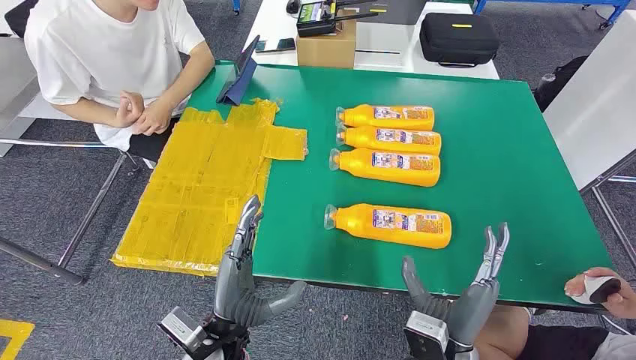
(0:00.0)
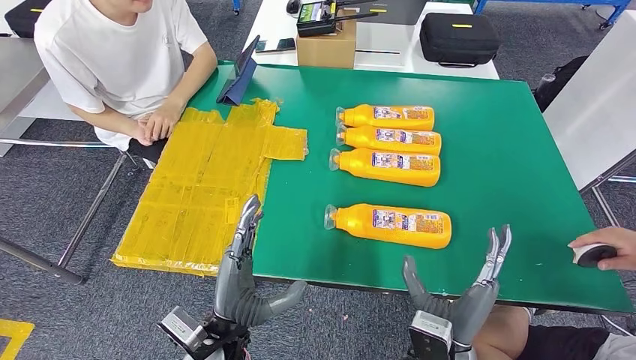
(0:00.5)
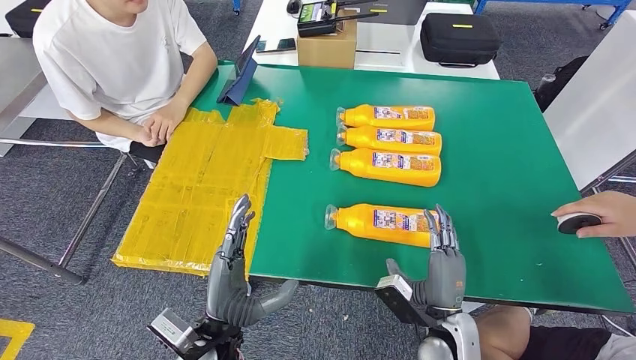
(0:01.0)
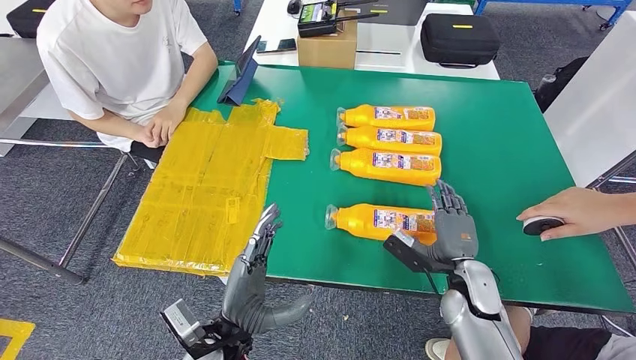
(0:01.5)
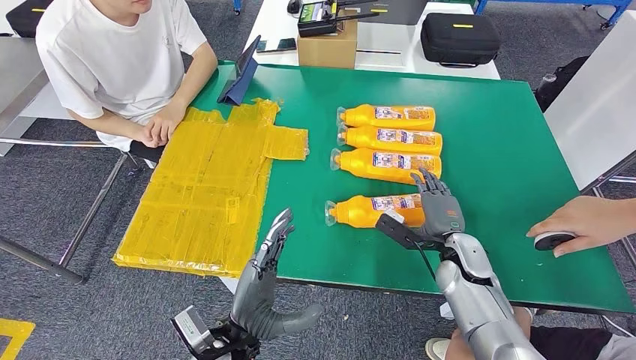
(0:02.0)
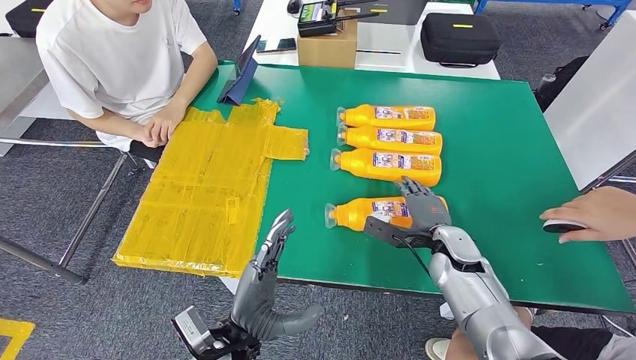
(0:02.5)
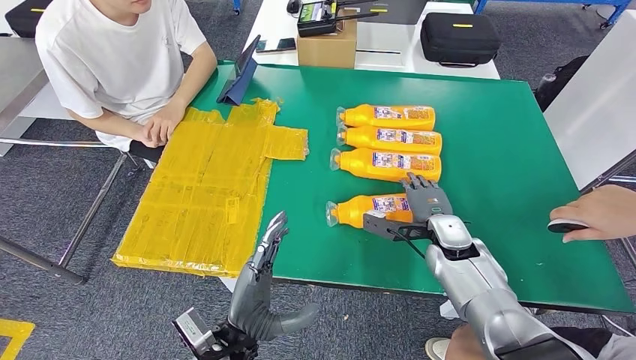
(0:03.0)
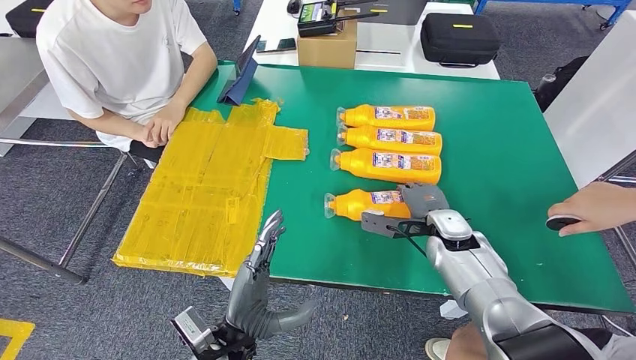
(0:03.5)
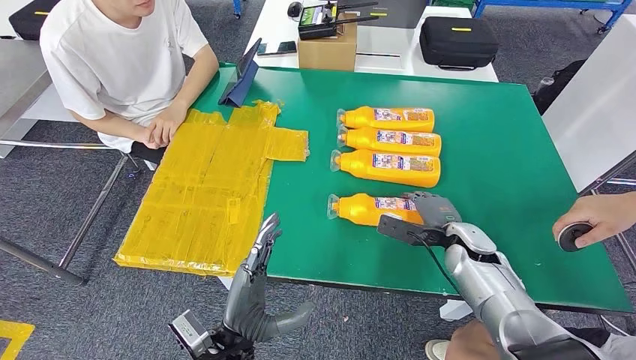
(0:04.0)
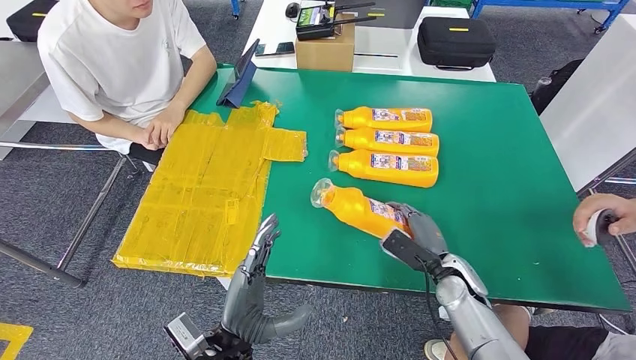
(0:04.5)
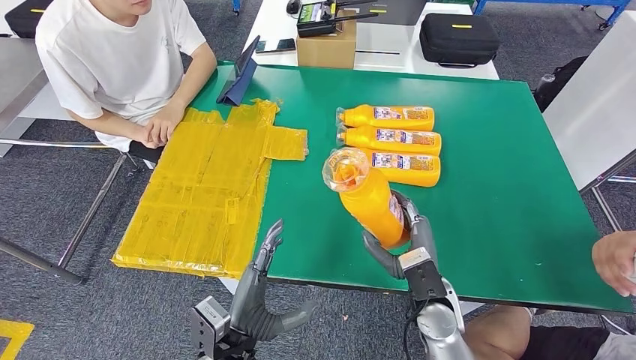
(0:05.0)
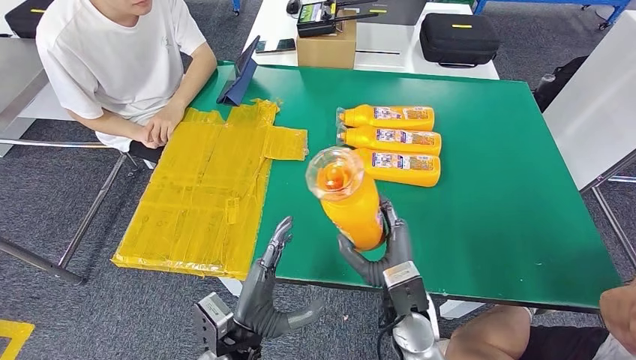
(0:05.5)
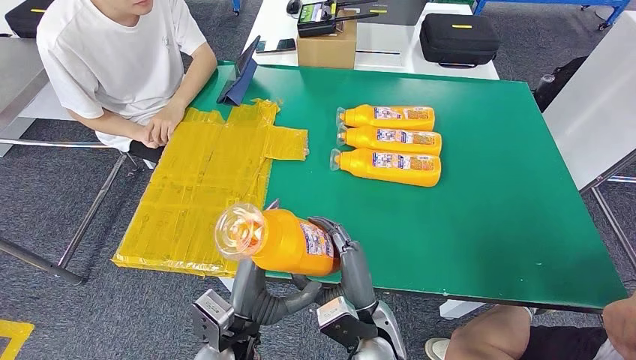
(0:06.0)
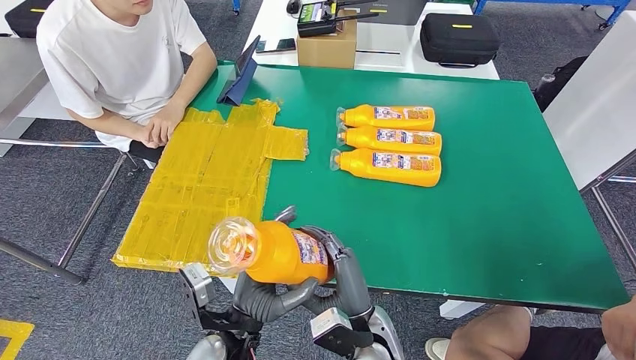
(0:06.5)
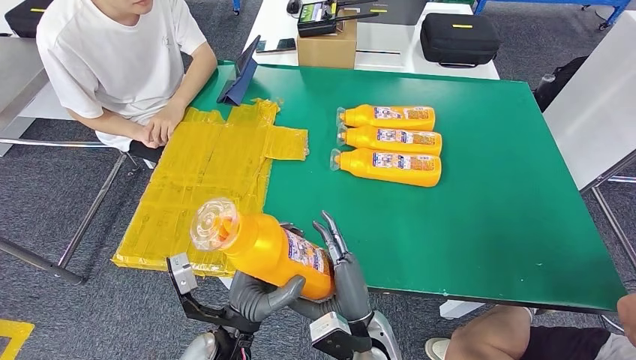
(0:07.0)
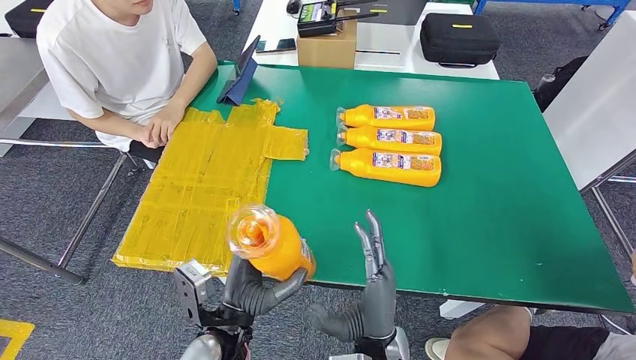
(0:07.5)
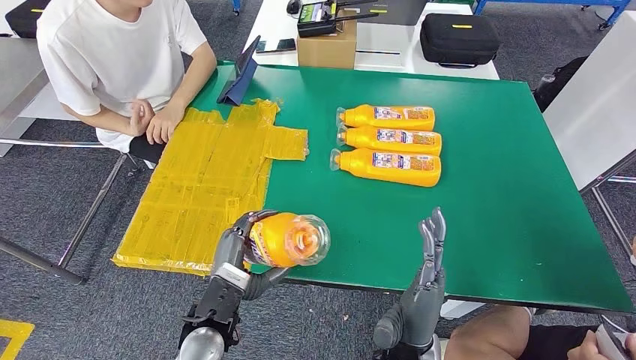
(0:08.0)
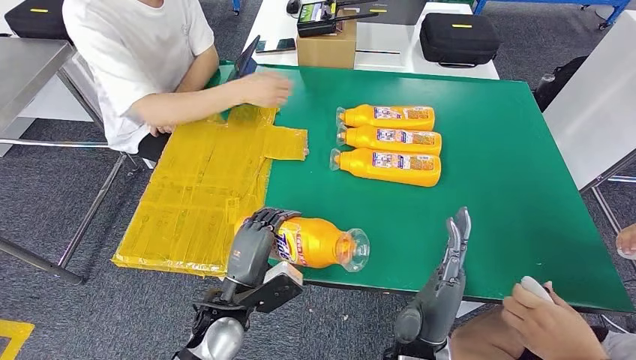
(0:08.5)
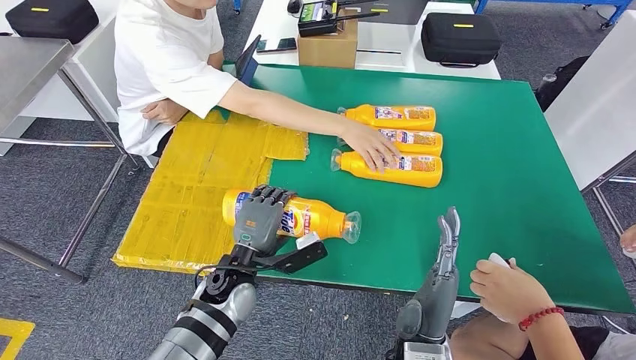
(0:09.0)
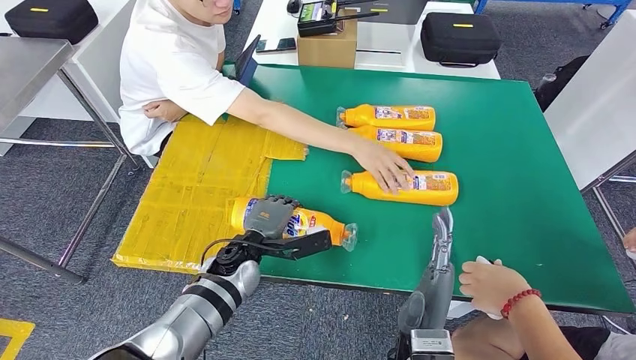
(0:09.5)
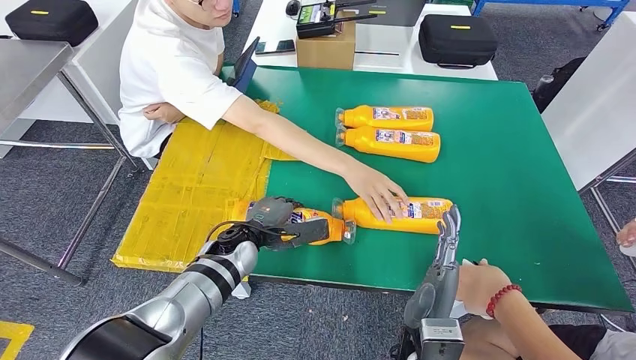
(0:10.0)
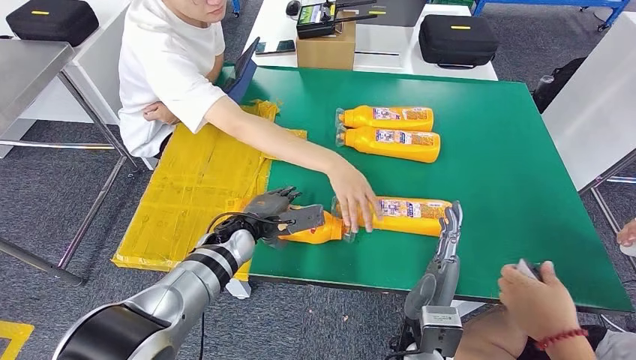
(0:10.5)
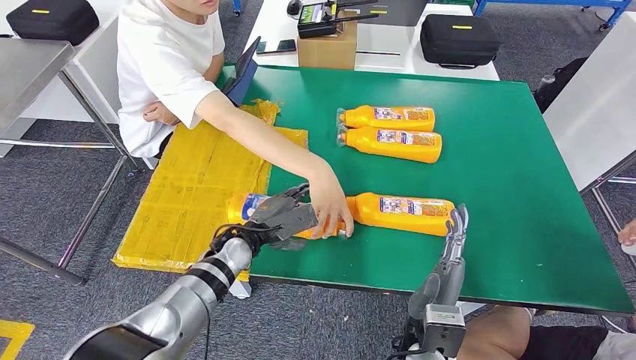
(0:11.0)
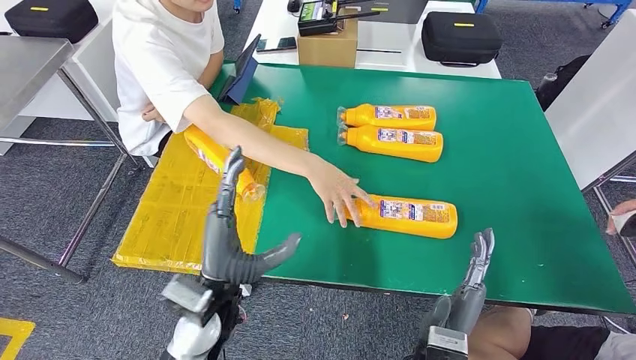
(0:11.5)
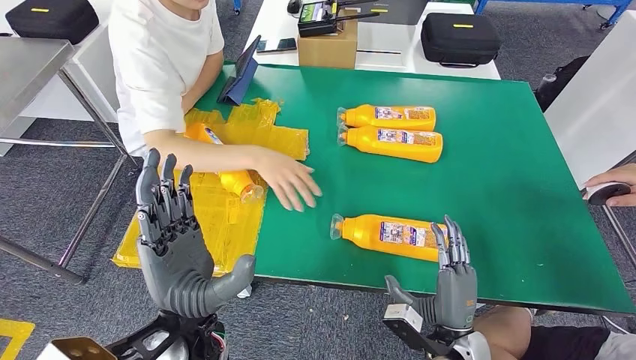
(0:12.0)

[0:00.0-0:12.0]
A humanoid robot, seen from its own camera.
Step, 0:00.0 to 0:06.5: Take the bottle from the table.
Step, 0:07.0 to 0:11.5: Flip the bottle to face forward.
0:06.0 to 0:08.0: The right hand ends up approximately 5 cm from where it was.

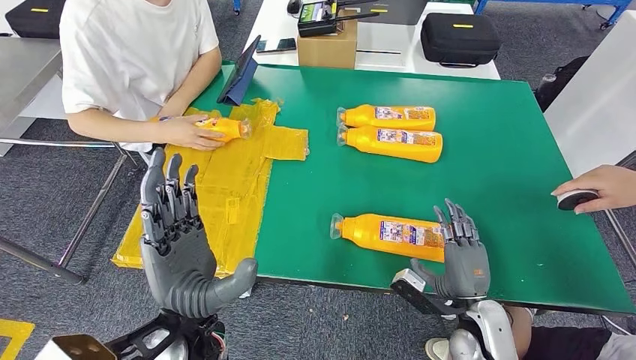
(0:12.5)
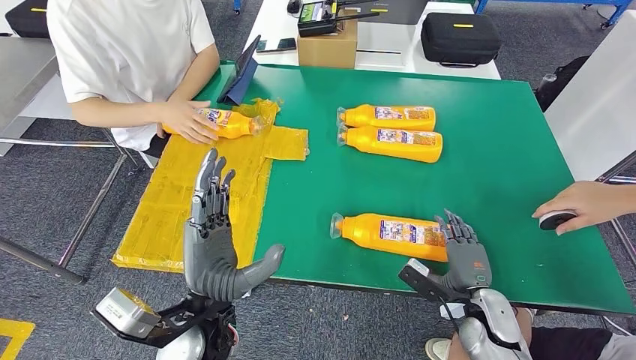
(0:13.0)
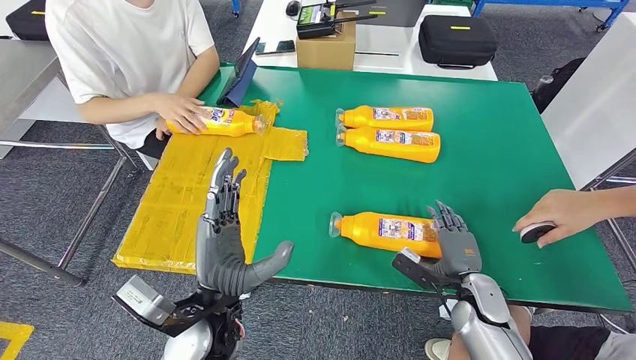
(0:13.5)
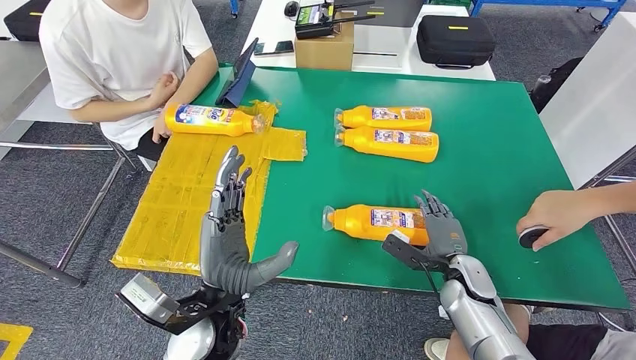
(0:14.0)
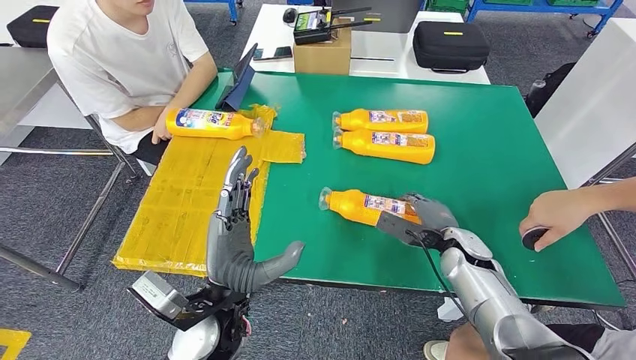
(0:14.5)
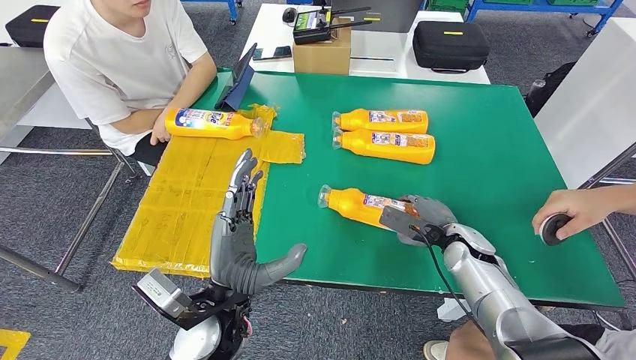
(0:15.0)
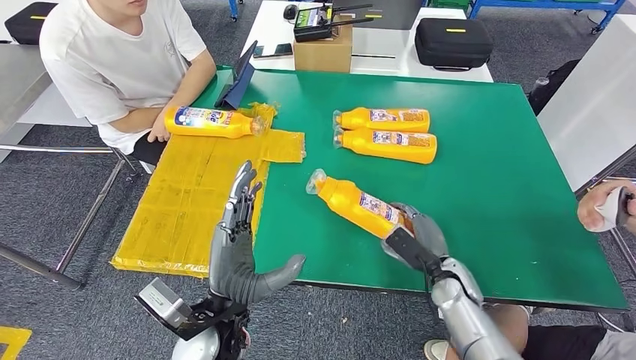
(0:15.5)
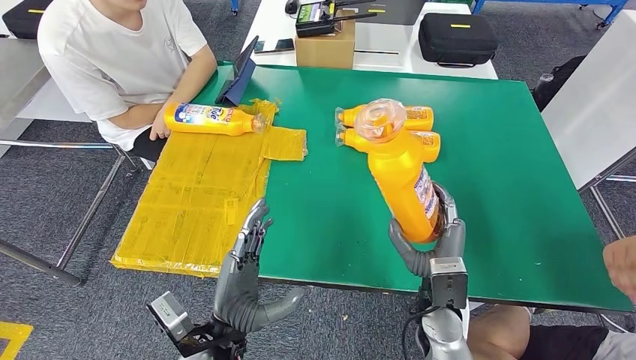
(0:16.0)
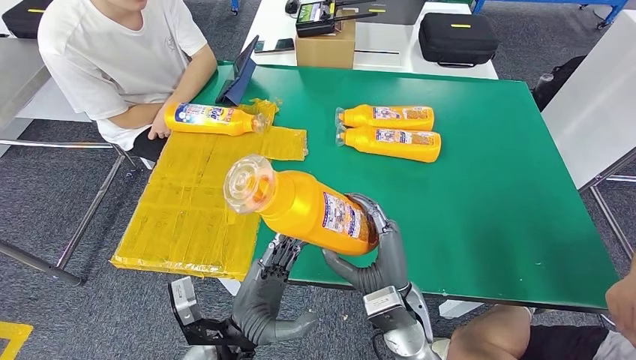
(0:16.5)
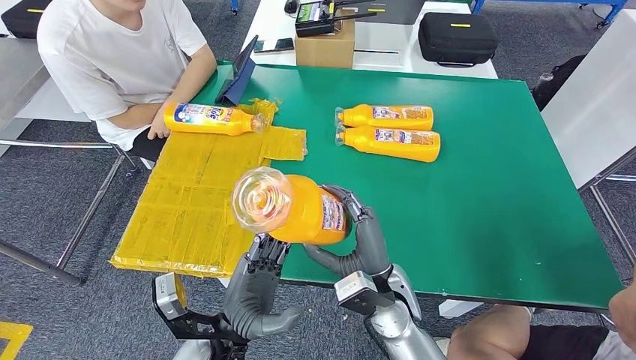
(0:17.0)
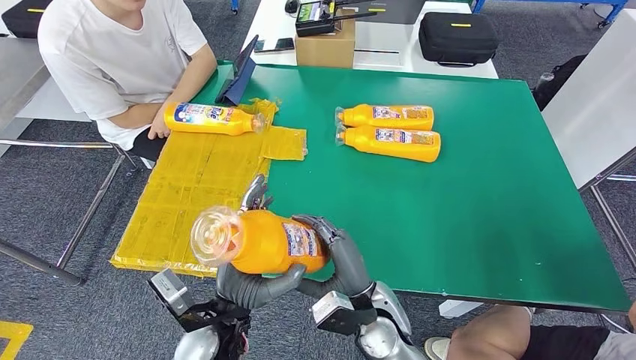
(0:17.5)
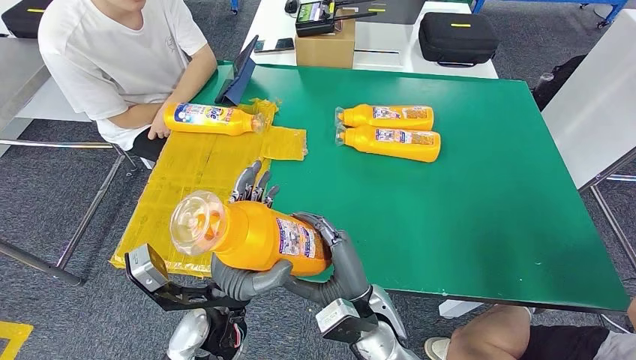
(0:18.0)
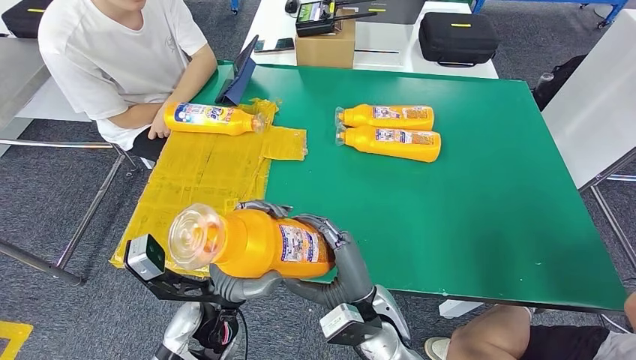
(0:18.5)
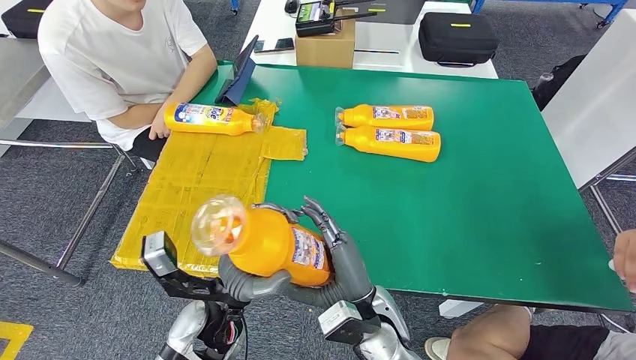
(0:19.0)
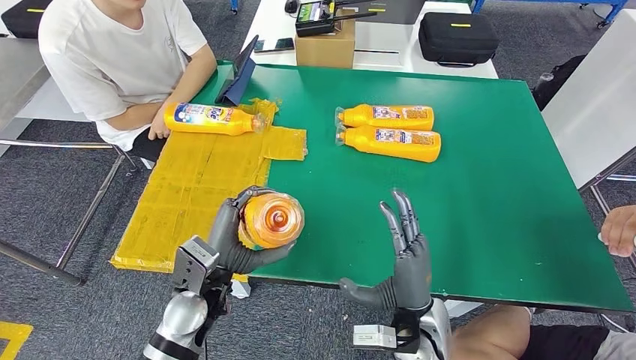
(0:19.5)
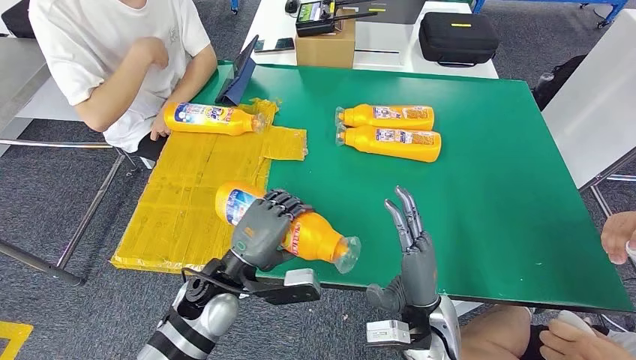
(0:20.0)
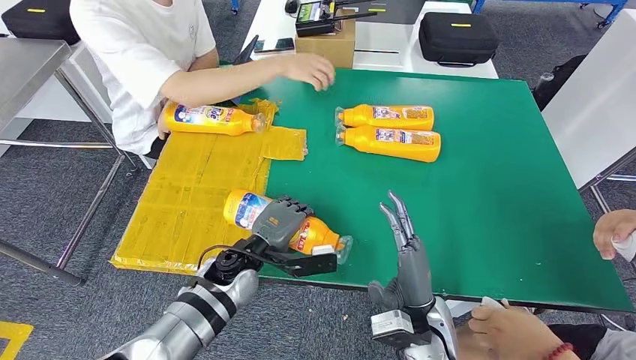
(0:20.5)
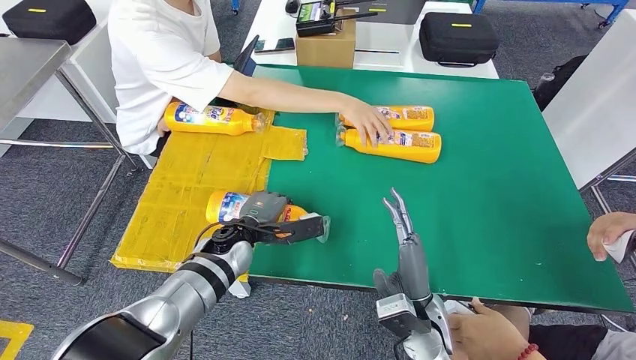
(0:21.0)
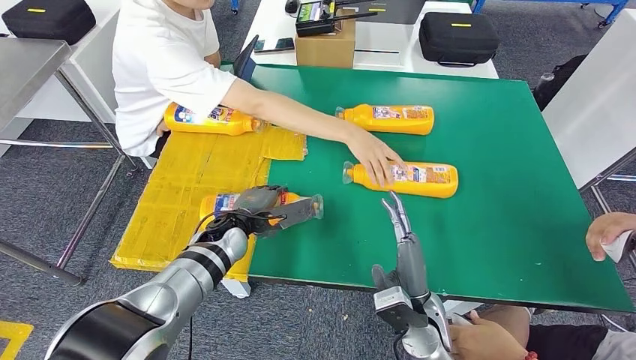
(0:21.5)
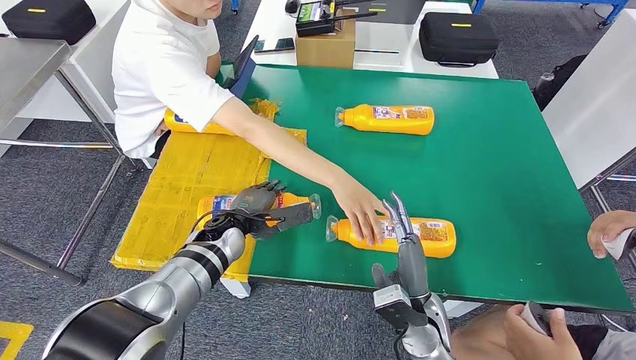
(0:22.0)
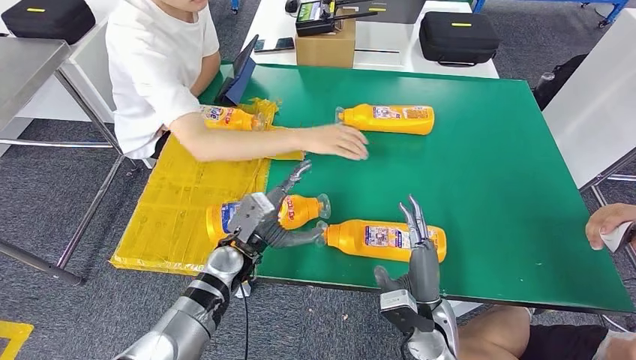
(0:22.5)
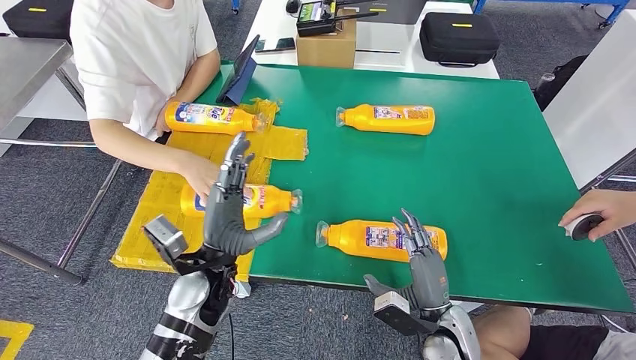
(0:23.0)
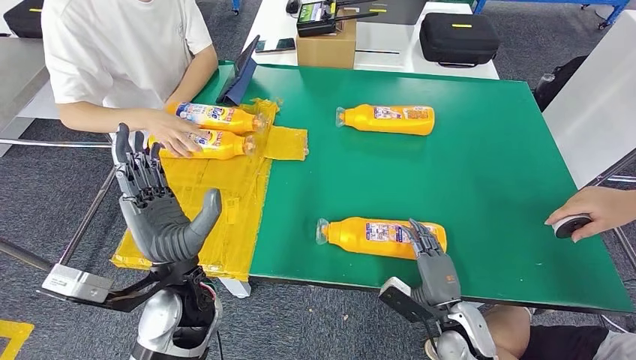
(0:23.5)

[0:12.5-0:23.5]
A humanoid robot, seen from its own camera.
Step, 0:12.5 to 0:16.0: Pick up the bottle from the table.
Step, 0:16.5 to 0:22.0: Flip the bottle to face forward.
0:16.0 to 0:18.0: The right hand heads to the left, covering approximately 10 cm. The left hand ends up some 5 cm from where it was.
0:18.0 to 0:20.0: The right hand travels to the right by about 10 cm, while the left hand goes some 5 cm forward.
